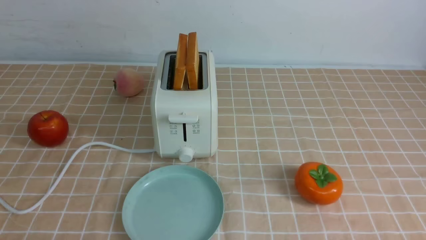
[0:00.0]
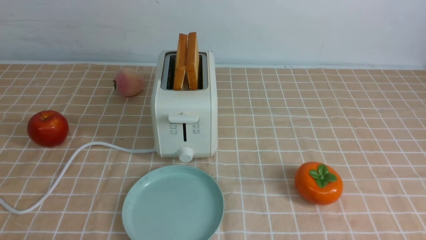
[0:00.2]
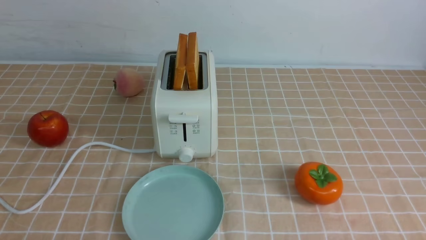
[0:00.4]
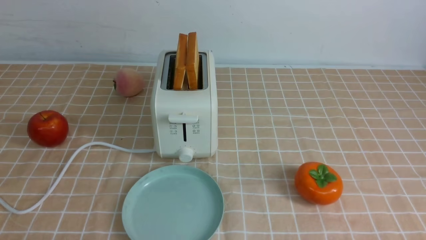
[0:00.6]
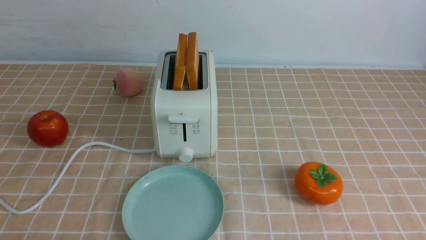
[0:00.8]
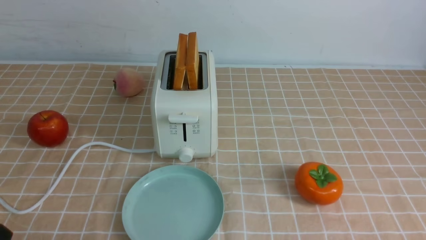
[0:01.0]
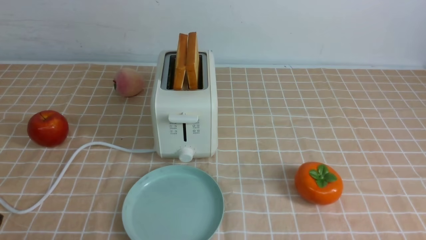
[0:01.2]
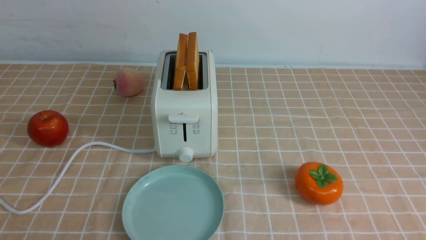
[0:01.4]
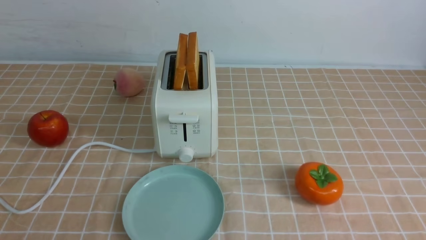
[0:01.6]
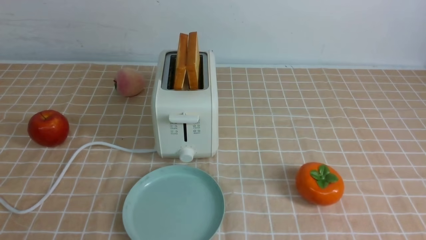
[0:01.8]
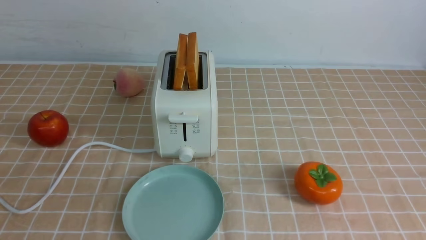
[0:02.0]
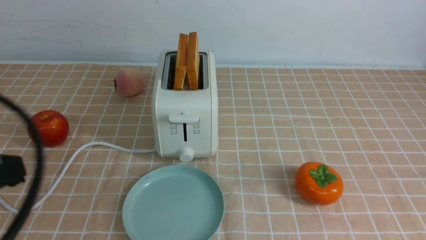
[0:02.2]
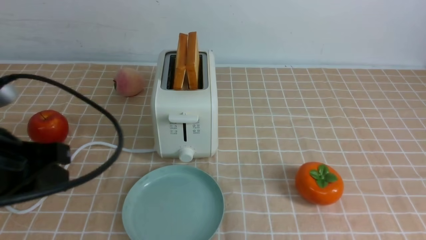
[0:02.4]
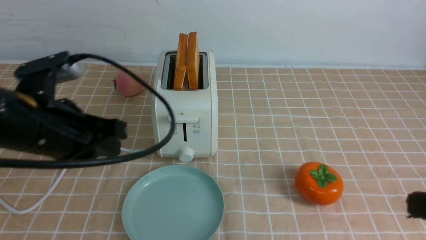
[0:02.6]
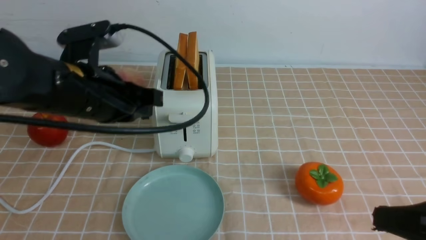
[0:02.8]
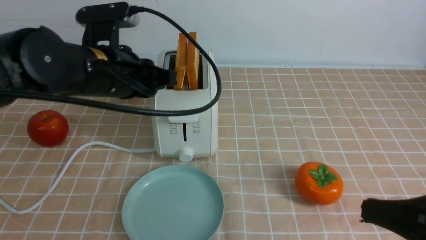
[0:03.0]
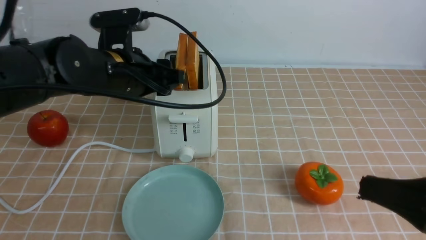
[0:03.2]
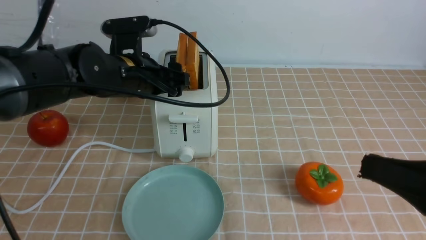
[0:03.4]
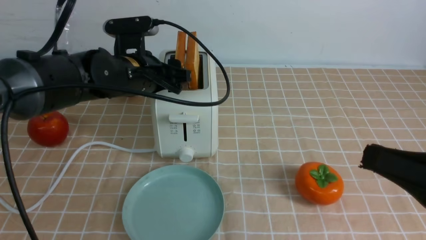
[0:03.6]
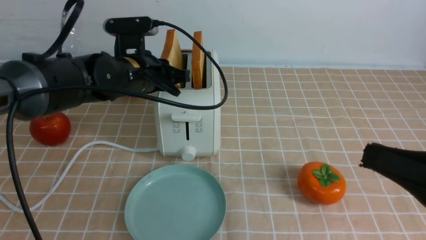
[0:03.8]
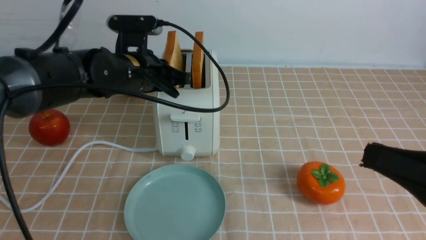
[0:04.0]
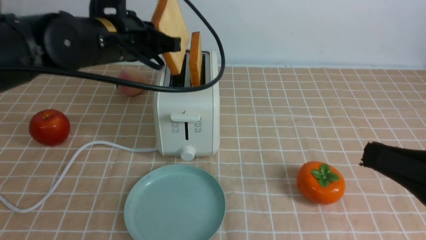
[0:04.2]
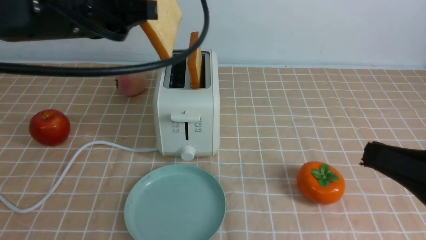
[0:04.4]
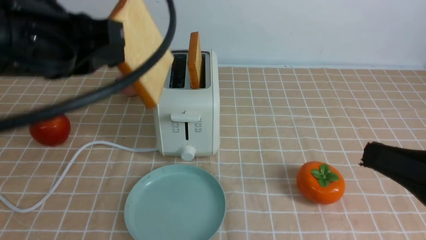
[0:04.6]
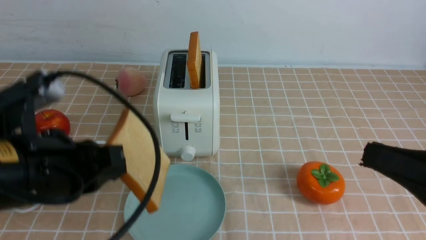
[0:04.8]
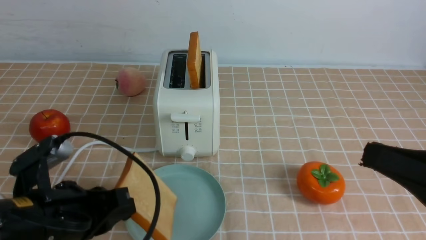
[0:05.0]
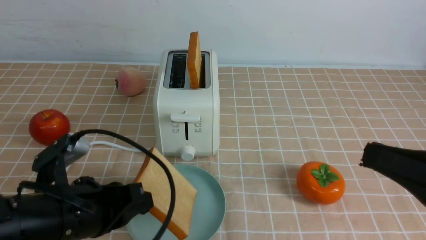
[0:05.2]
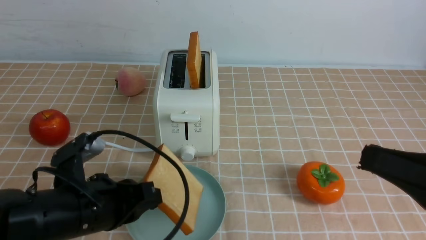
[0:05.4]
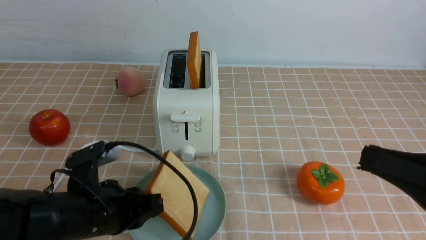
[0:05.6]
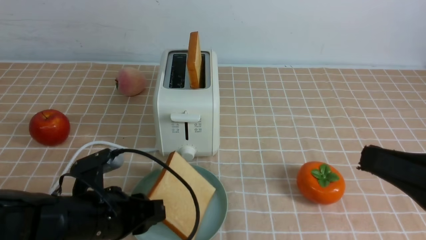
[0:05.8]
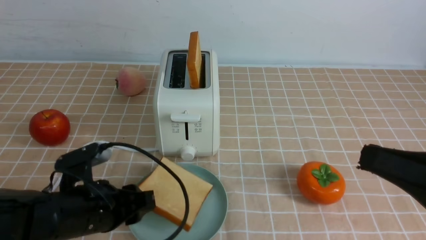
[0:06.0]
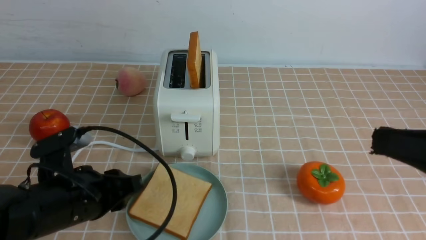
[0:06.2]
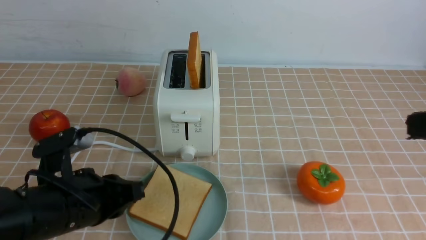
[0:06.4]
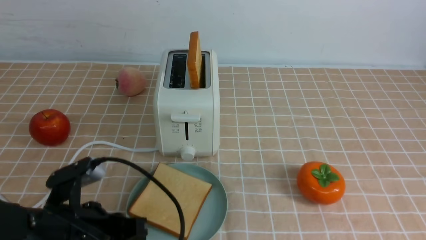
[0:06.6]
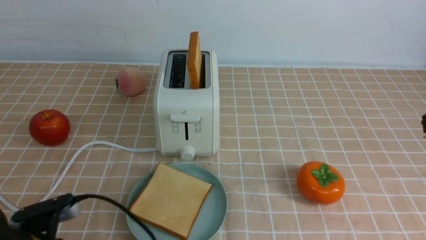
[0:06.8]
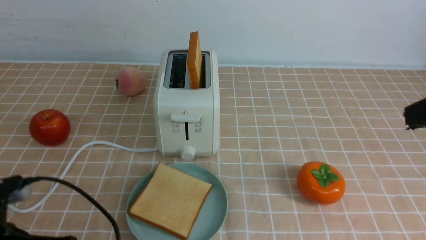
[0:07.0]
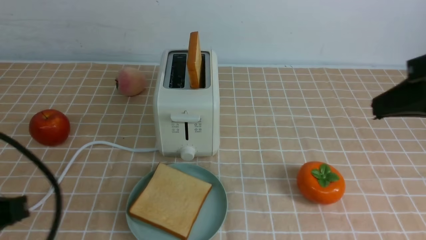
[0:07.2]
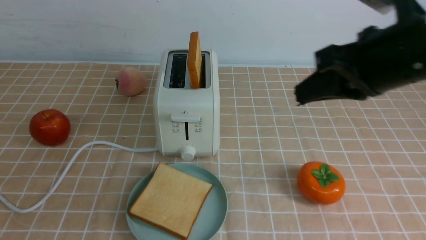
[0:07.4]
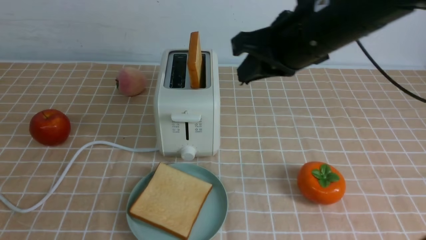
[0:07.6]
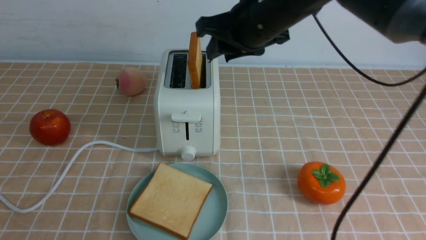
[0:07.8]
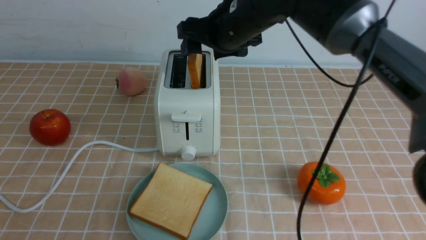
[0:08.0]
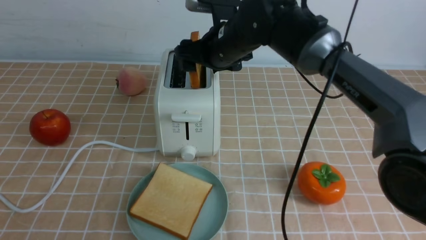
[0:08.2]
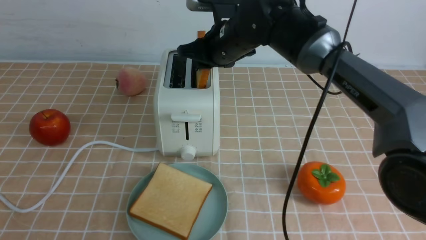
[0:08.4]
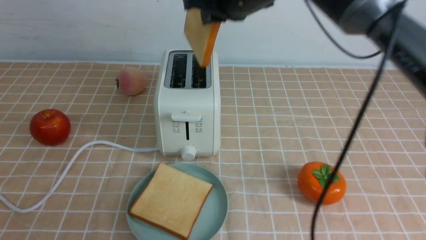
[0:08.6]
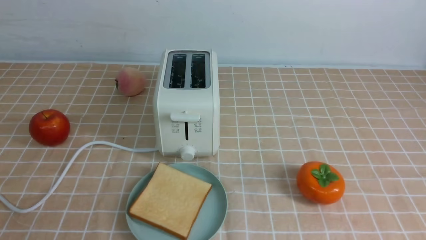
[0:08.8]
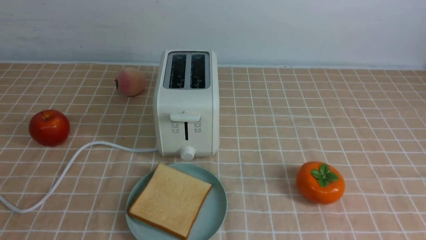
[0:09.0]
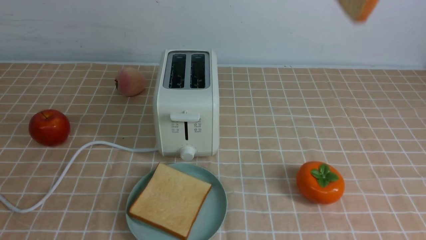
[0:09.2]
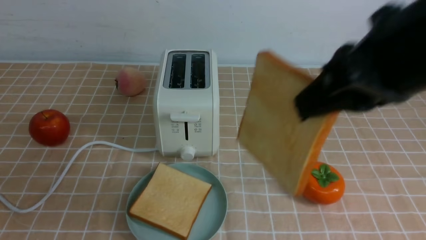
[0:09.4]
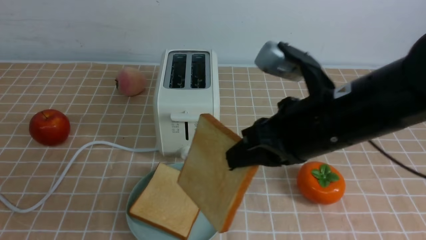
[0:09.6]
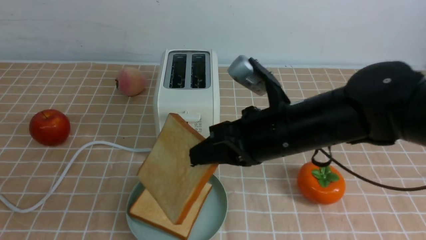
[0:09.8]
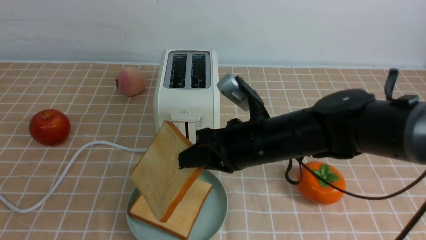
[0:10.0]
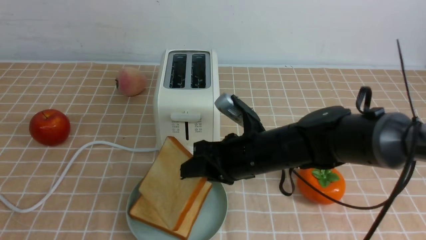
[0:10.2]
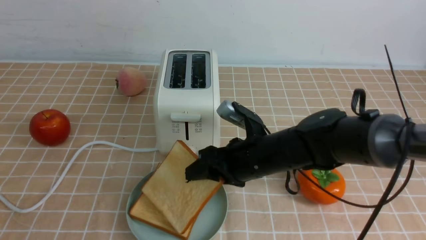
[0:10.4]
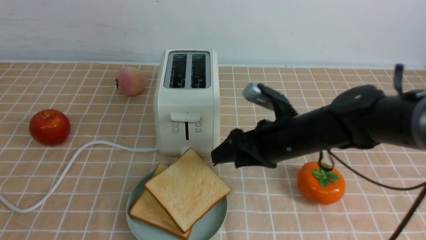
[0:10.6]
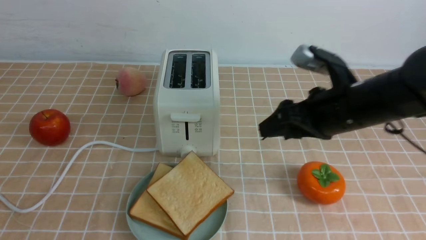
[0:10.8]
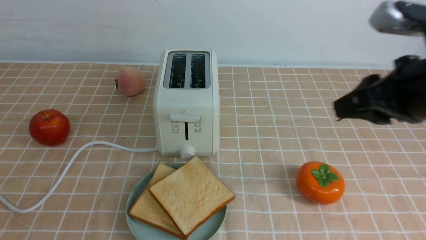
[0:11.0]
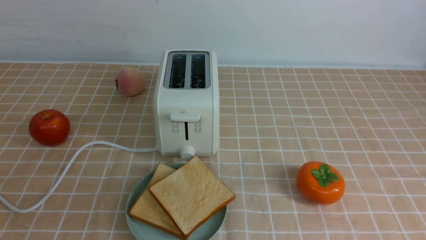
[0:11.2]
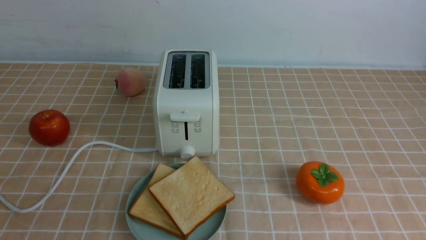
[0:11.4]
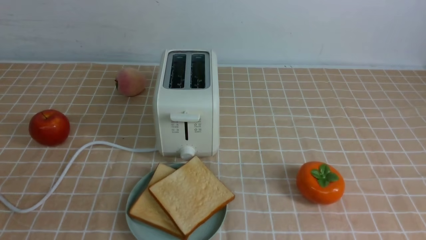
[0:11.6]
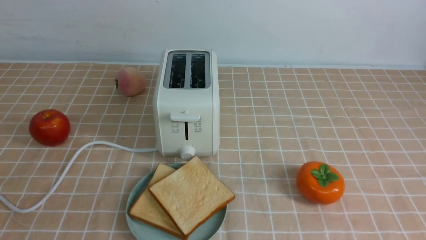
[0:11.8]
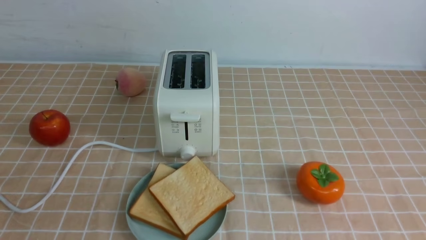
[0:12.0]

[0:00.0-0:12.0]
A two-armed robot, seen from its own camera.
Task of the whole recording: take toasted bread from bread machine on light coffee tablecloth place on plate.
Step, 0:00.0 to 0:04.0: use the left arm to take out a slice of bread.
Step, 0:04.2 to 0:06.0: use the left arm to put a slice of bread into the empty plate.
Step, 0:06.2 to 0:08.4: use the right arm to take out a slice of bread.
Step, 0:08.6 to 0:11.2: use the right arm to put a slice of bread into the plate.
0:01.6 to 0:03.0: The left gripper shifts roughly 30 cm forward and to the right. The right gripper is displaced upward, forward and to the left by approximately 10 cm, and closes its fingers.
0:03.0 to 0:04.4: The left gripper shifts roughly 10 cm upward, and closes up.
0:04.4 to 0:06.0: The left gripper heads downward, covering approximately 20 cm, and opens up.
0:06.0 to 0:07.6: The right gripper goes roughly 25 cm forward and to the left. The left gripper shifts some 25 cm backward, upward and to the left, and closes its fingers.
0:07.6 to 0:09.0: The right gripper is displaced upward and backward by about 20 cm, and opens, then closes again.
0:09.0 to 0:10.4: The right gripper is displaced downward by roughly 35 cm, and opens up.
0:10.4 to 0:12.0: The right gripper travels backward and to the right by approximately 40 cm, and closes its fingers.

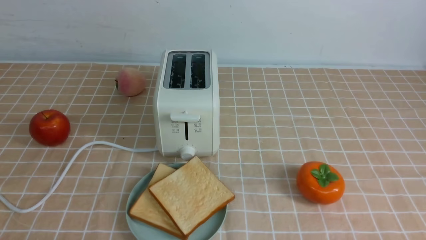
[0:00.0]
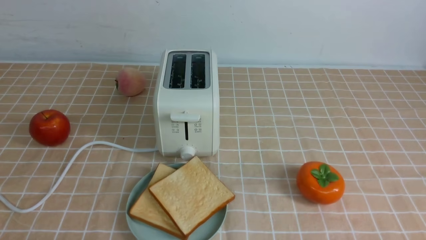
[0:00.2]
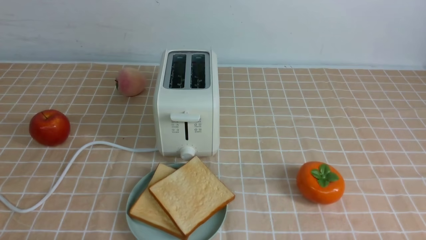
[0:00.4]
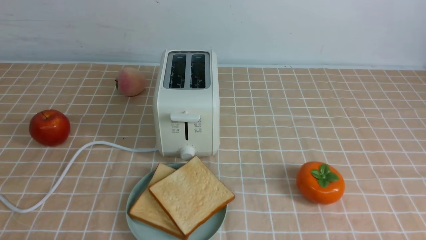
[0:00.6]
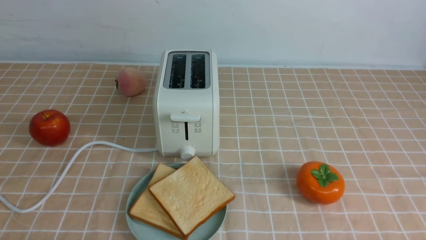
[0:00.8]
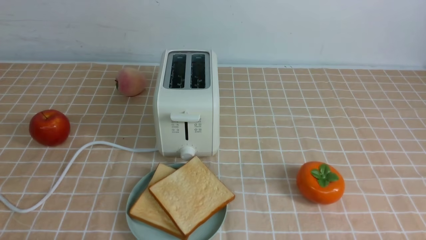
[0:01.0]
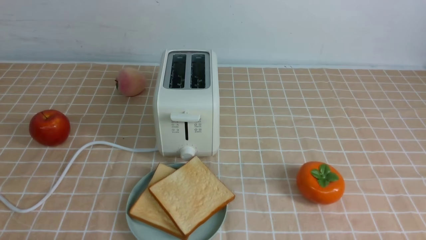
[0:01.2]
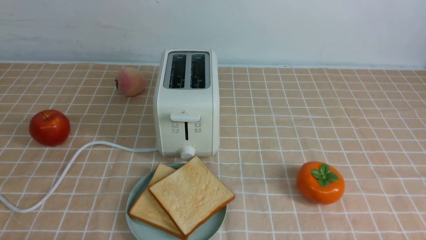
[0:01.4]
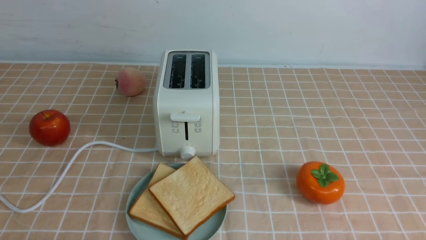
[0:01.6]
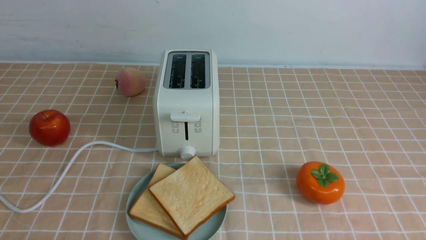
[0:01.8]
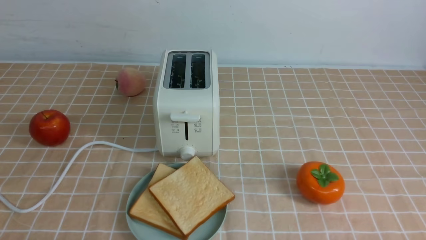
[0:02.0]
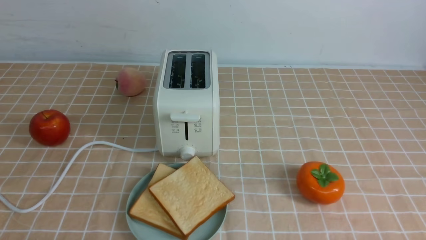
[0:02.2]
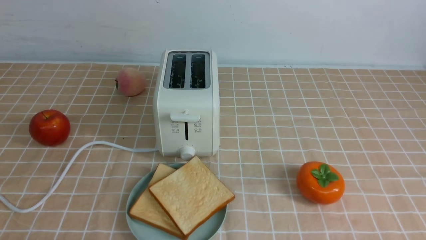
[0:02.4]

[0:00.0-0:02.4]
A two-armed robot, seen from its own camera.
Task of the whole recording: take toasted bread from bread machine on light coffee tablecloth place on plate.
0:00.0 to 0:02.4: Both grippers stay put.
